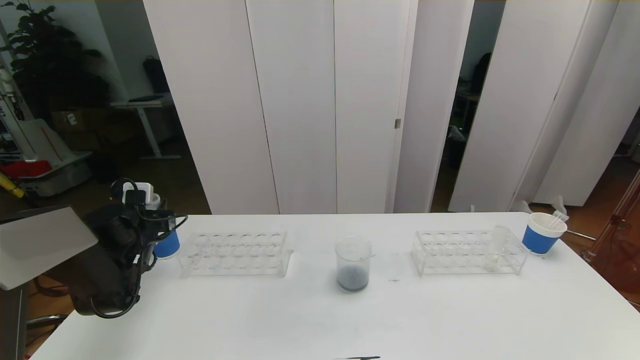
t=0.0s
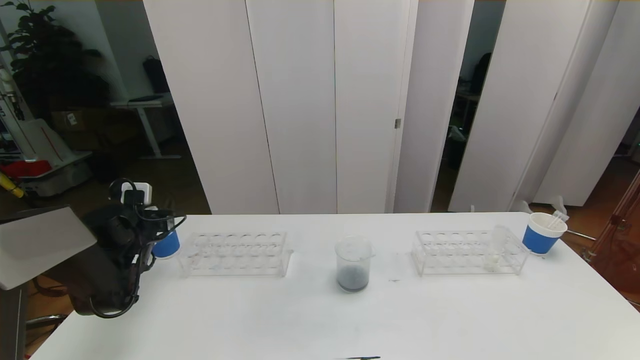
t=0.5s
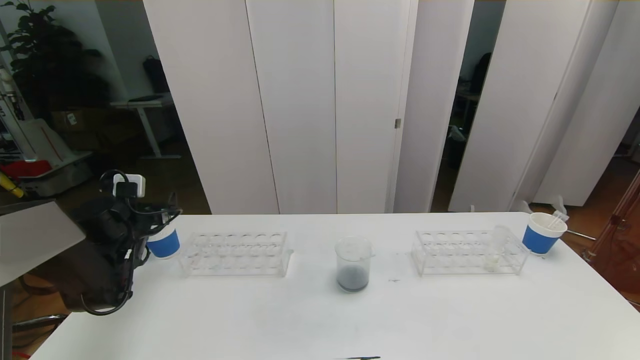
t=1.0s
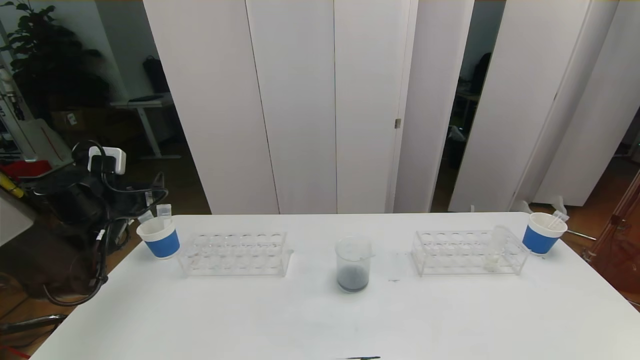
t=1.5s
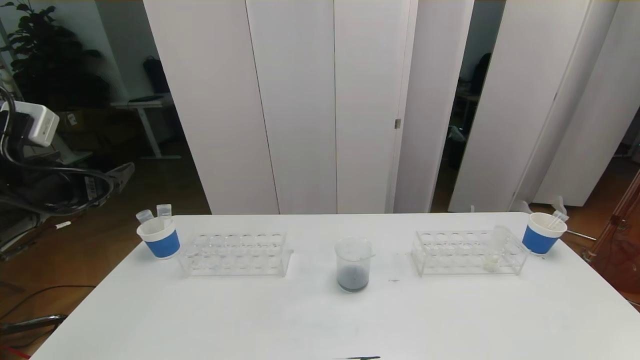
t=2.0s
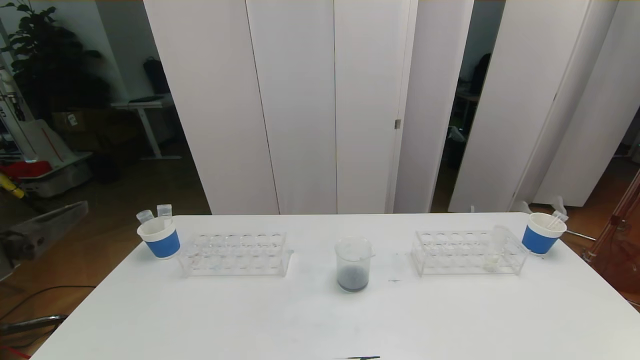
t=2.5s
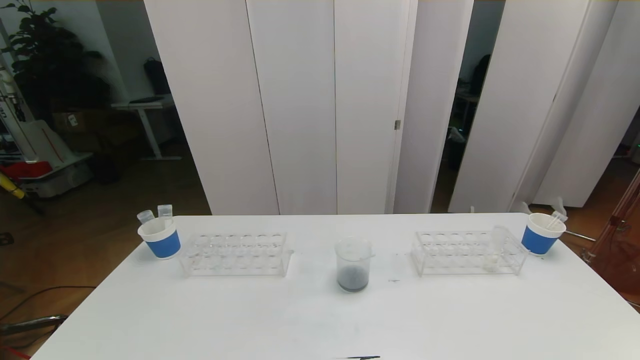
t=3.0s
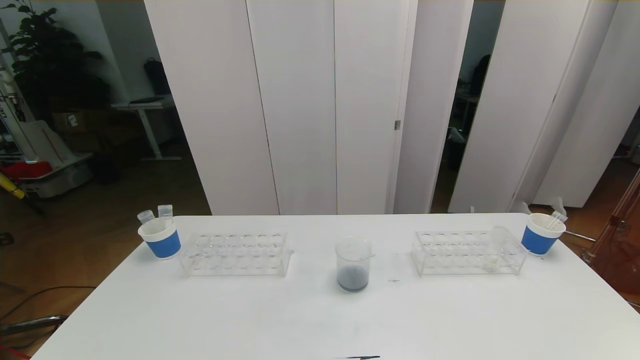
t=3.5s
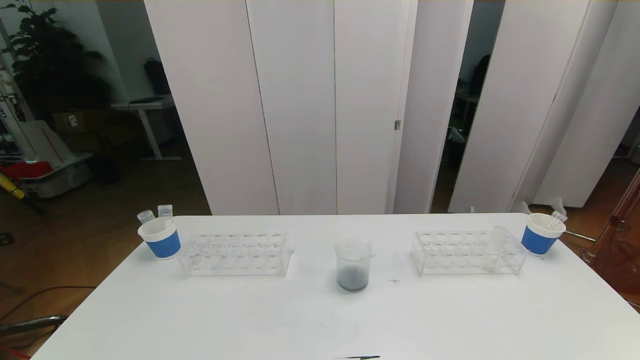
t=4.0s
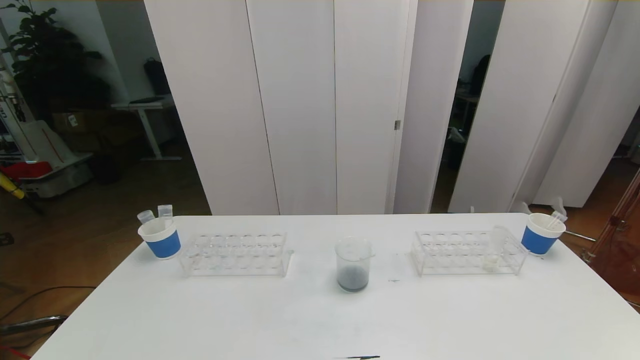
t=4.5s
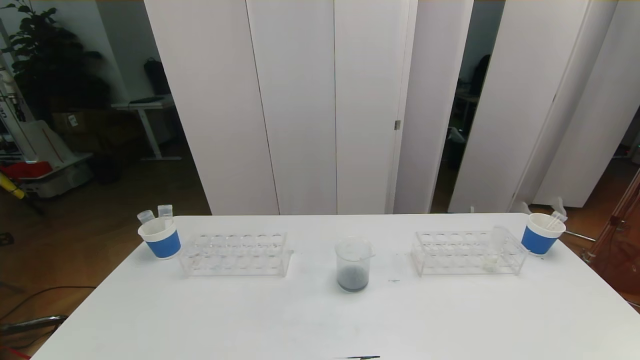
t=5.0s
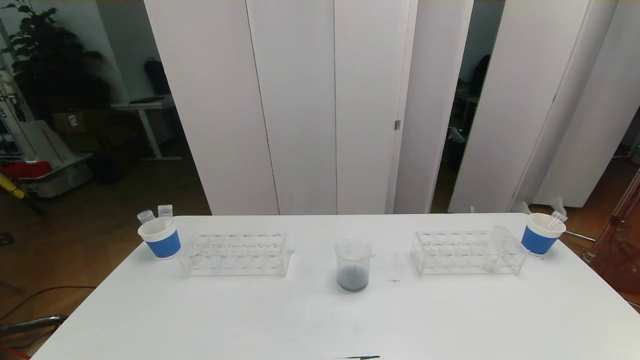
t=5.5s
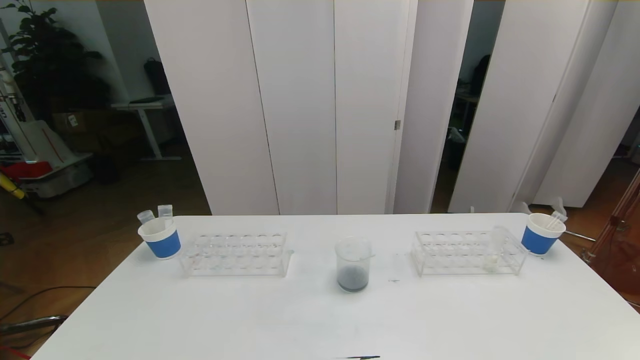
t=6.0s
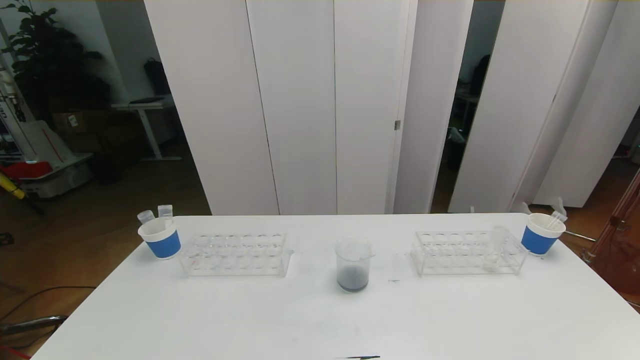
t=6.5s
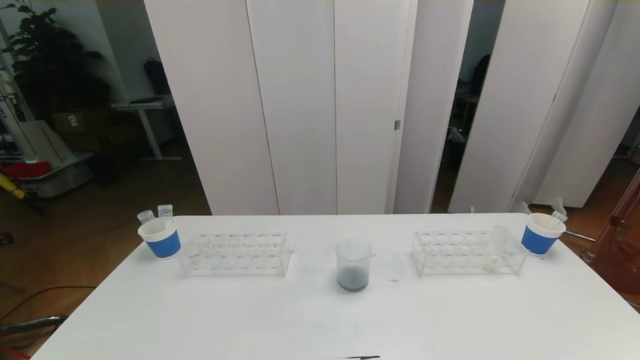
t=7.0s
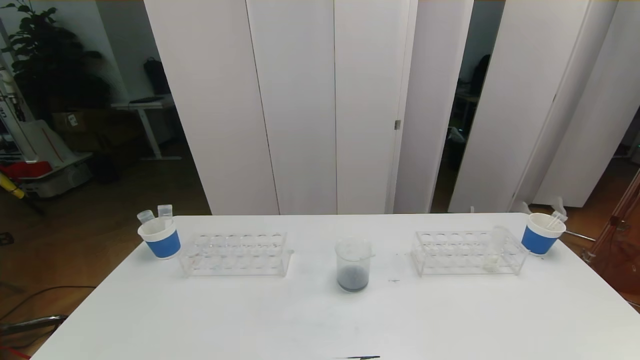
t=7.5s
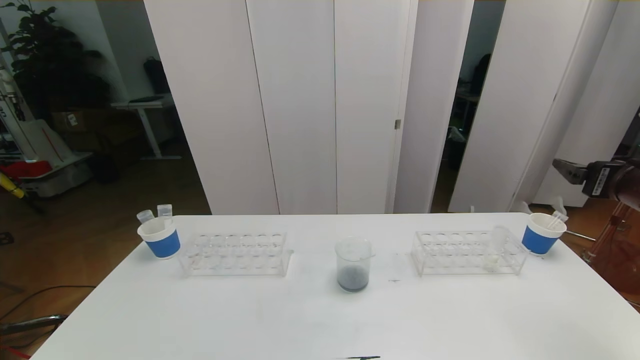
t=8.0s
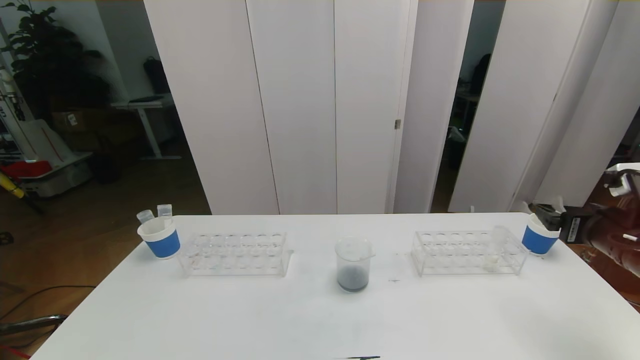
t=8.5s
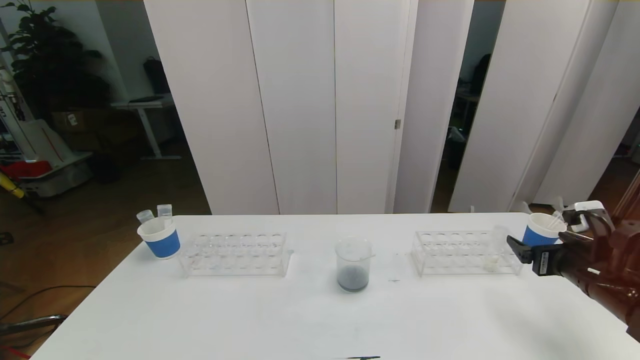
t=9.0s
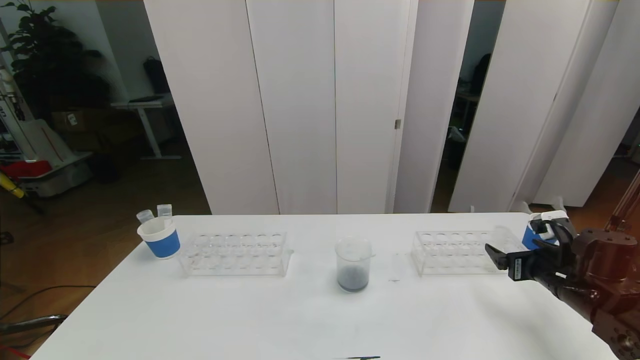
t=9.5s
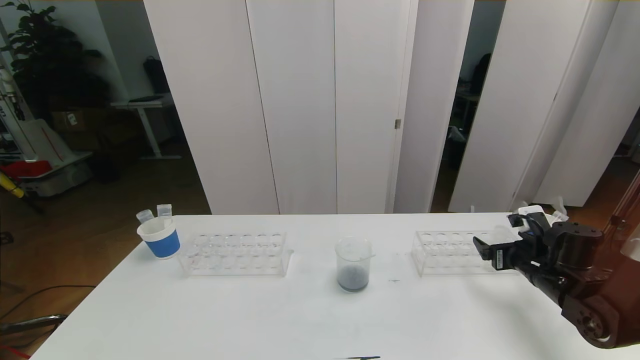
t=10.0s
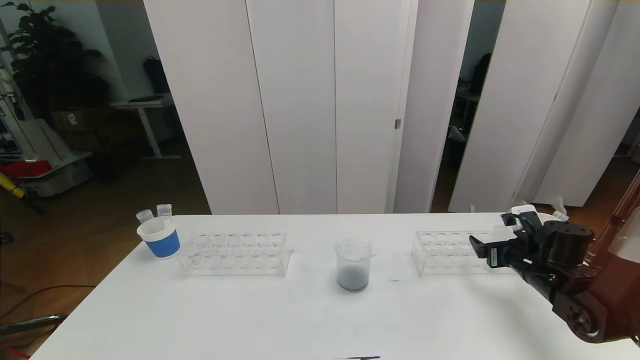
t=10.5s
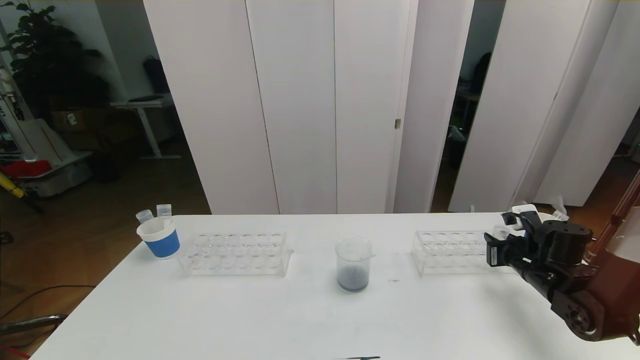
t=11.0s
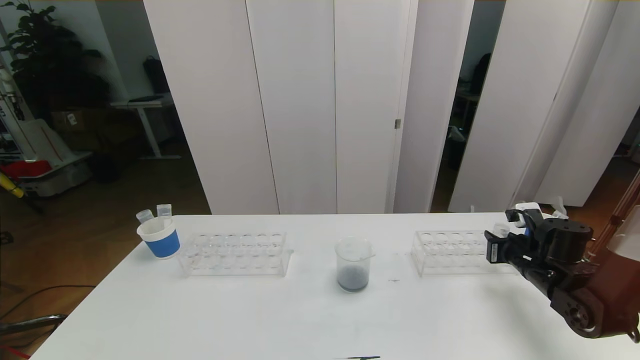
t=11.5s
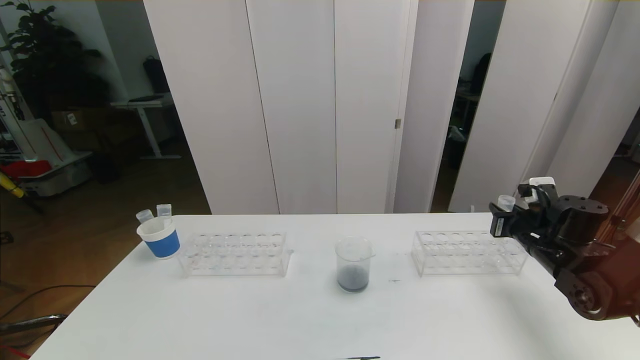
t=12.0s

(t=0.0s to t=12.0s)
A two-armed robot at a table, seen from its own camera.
Task of the whole recording: pick up the test tube with red pigment the test tube with blue pigment and the test tube with white pigment by grippers and pour them into the beaker.
Step, t=0.0s - t=4.5s: Pour the orange reagent into the graduated cylinder and place the test tube into the paper cup.
t=0.0s - t=2.0s: The left gripper heads upward and backward, covering about 25 cm, and opens.
t=2.0s - t=4.0s: The left gripper moves backward and downward, approximately 30 cm.
t=6.0s - t=8.0s: The right gripper shifts some 35 cm forward and upward.
t=8.0s - t=10.0s: The right gripper is displaced downward by approximately 15 cm.
t=10.0s - t=12.0s: The right gripper moves about 5 cm, and closes up.

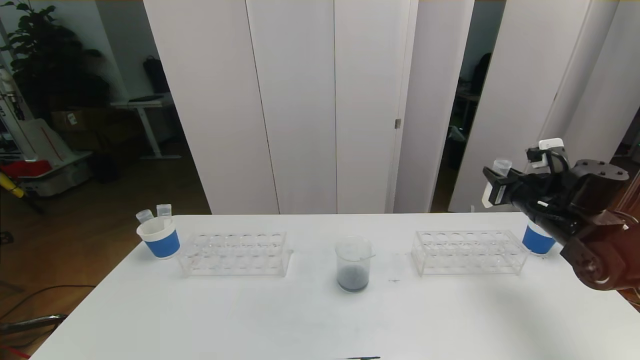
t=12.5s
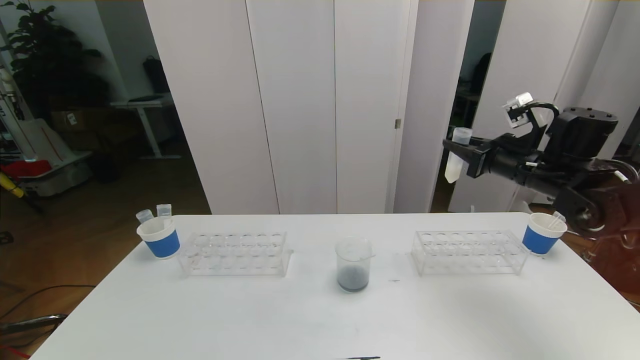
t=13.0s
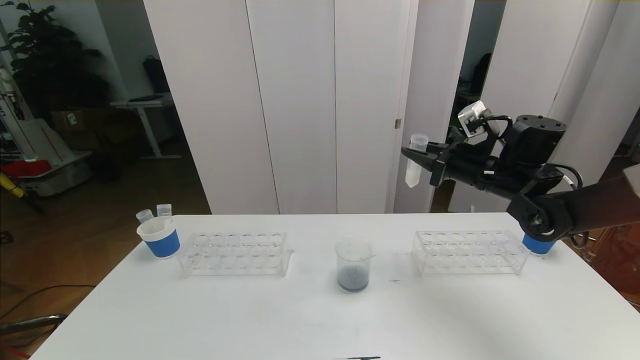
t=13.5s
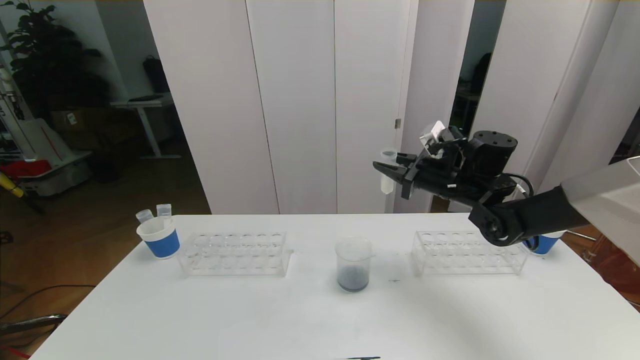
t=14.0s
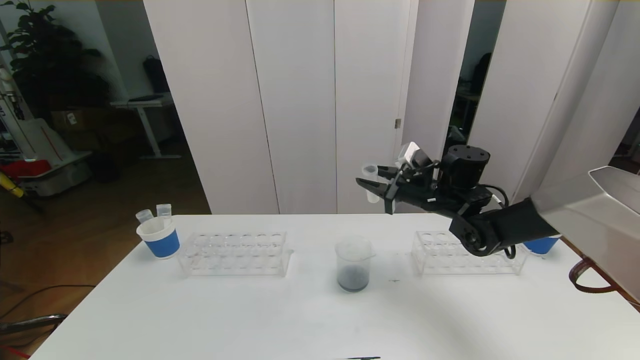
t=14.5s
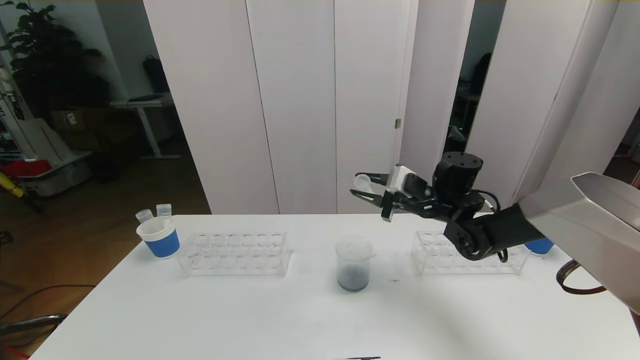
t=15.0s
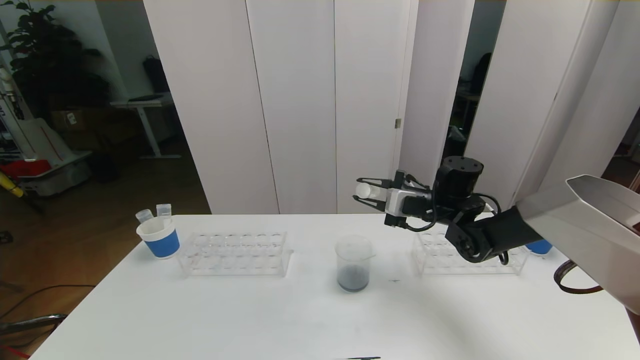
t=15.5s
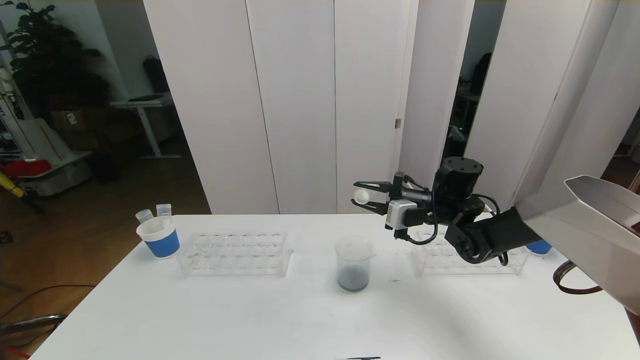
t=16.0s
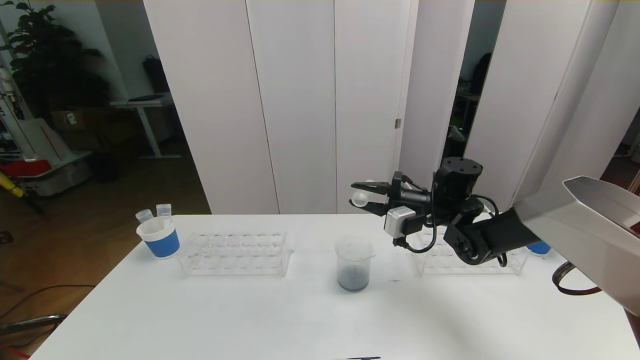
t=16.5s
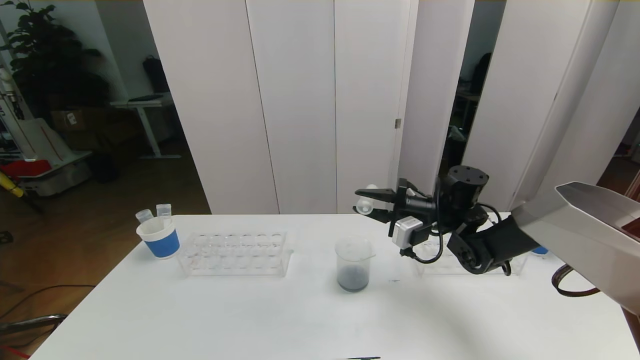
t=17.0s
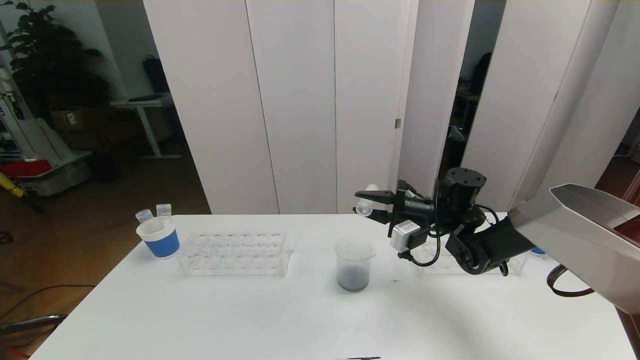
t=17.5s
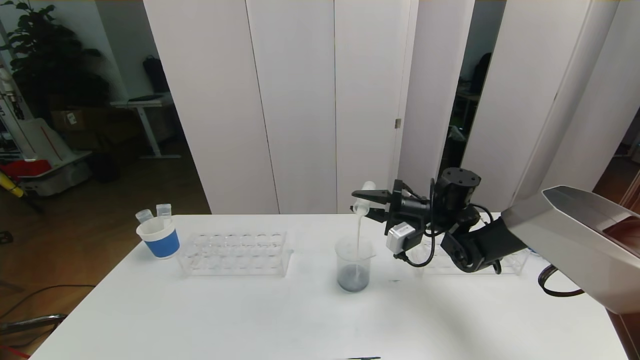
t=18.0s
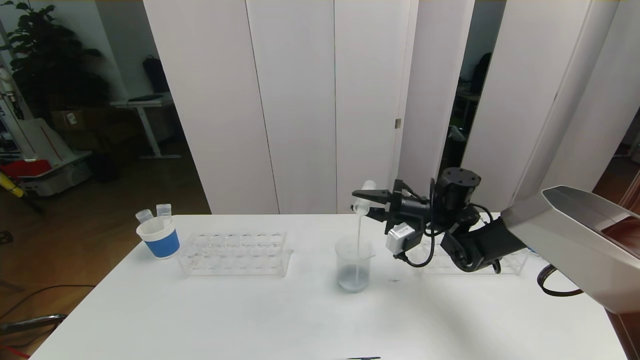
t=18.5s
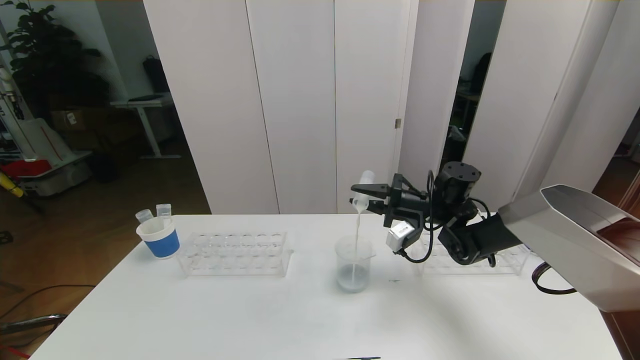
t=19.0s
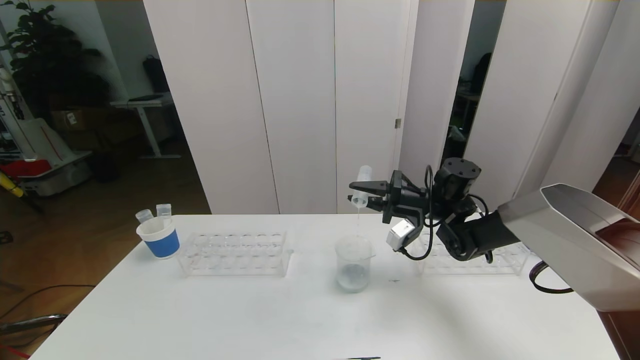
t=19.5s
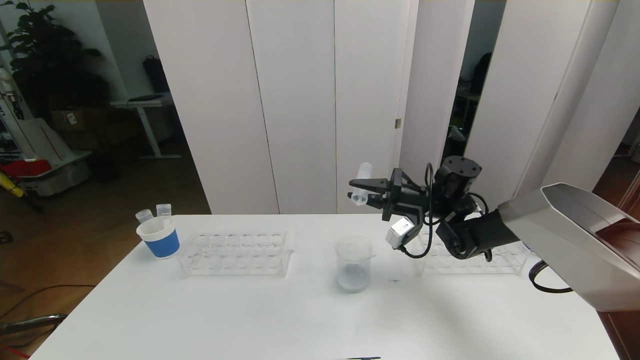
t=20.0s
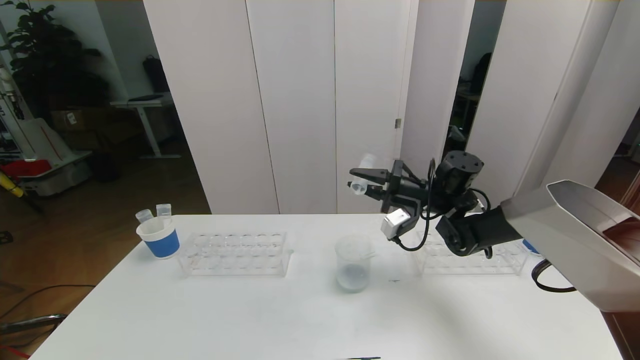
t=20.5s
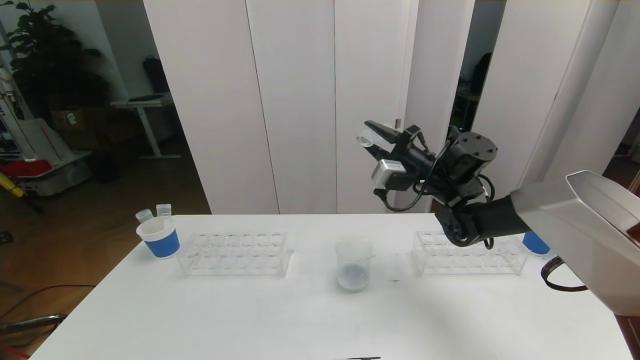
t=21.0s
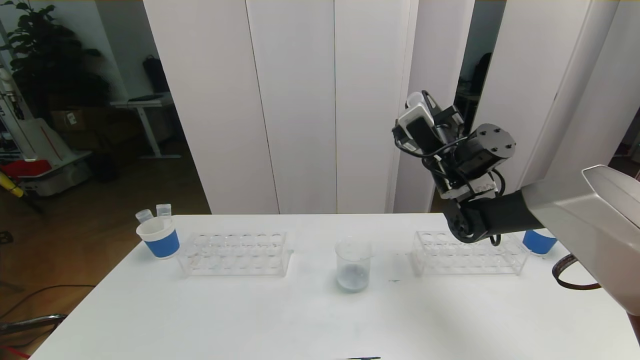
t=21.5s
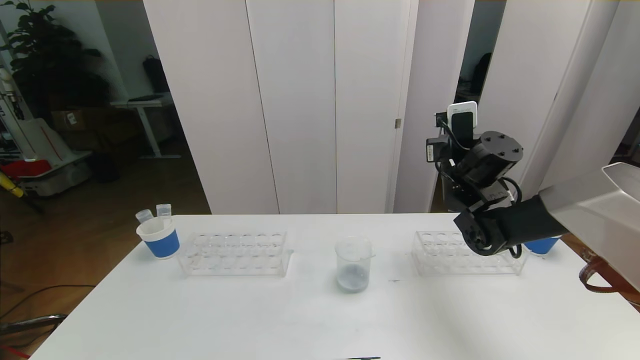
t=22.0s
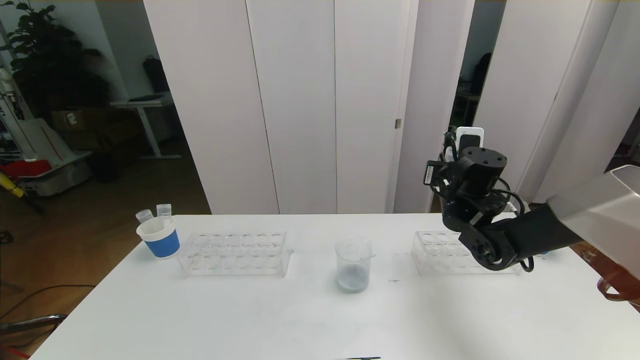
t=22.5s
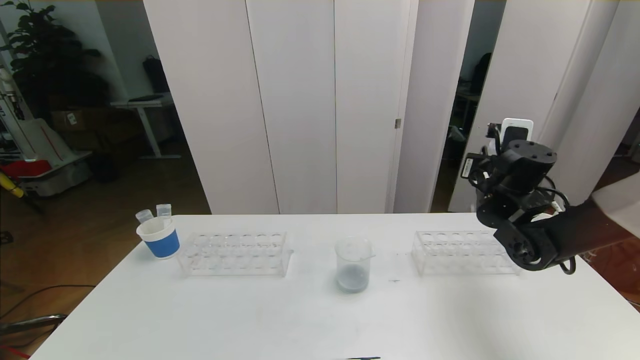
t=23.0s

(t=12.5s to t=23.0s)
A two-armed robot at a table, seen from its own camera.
Task of the whole recording: pick up the test tube with red pigment the test tube with blue pigment and the test tube with white pigment by grippers and pour them into the beaker.
t=12.5s - t=14.5s: The right gripper goes approximately 15 cm to the left.
t=19.0s - t=21.0s: The right gripper shifts about 5 cm upward.
t=21.0s - t=23.0s: The right gripper goes roughly 10 cm to the right.
